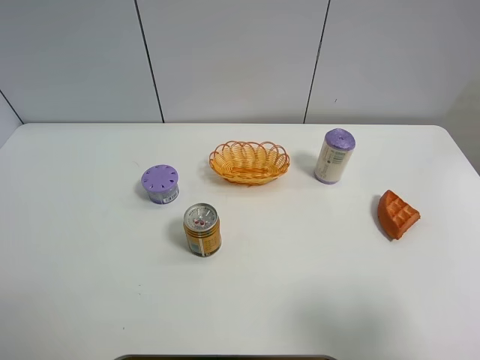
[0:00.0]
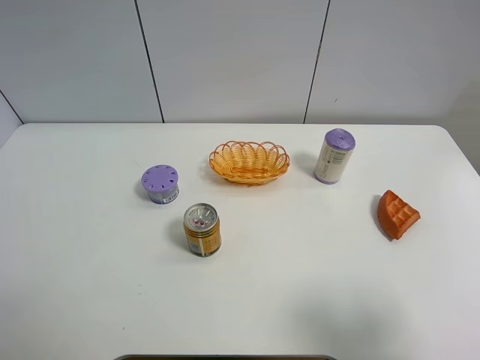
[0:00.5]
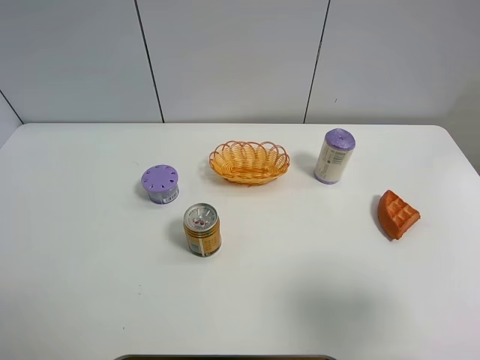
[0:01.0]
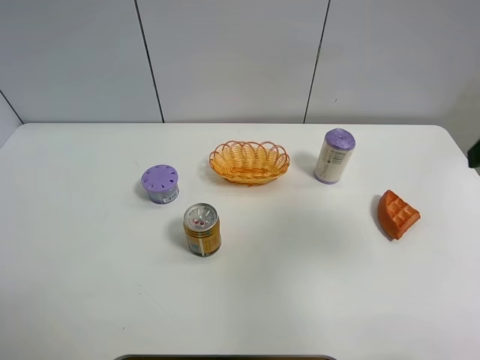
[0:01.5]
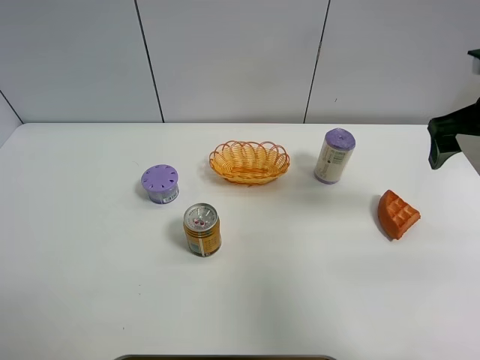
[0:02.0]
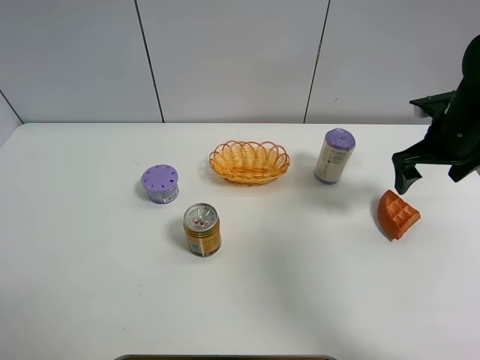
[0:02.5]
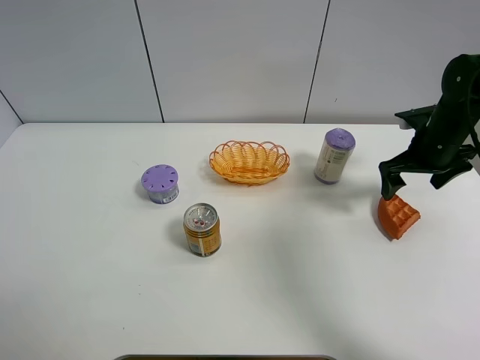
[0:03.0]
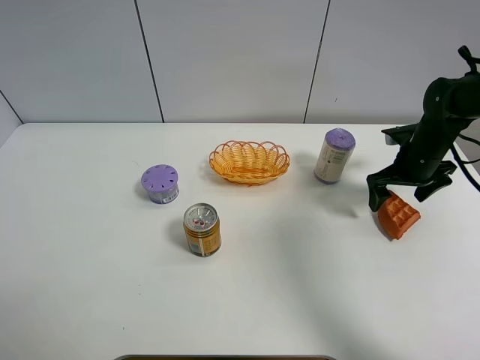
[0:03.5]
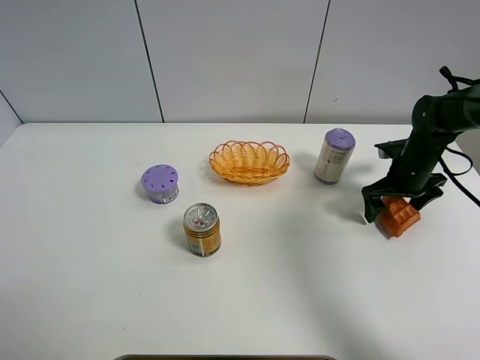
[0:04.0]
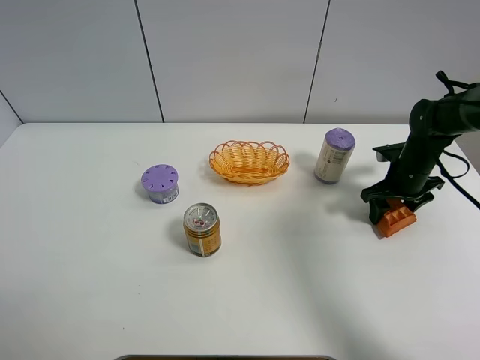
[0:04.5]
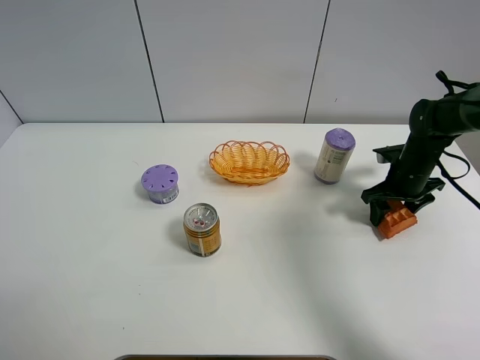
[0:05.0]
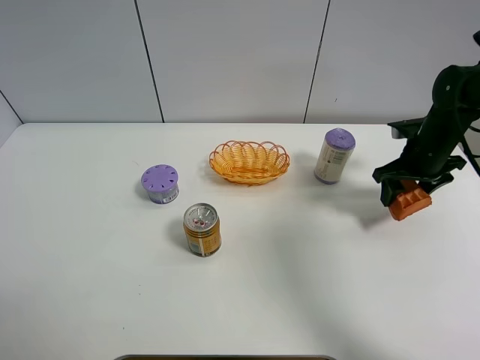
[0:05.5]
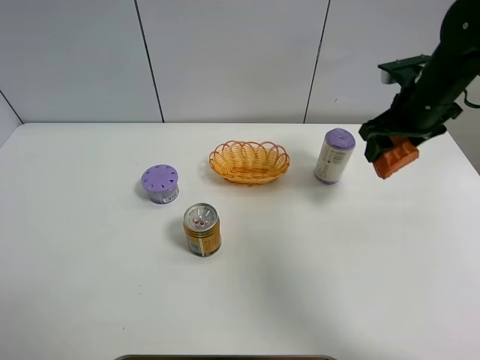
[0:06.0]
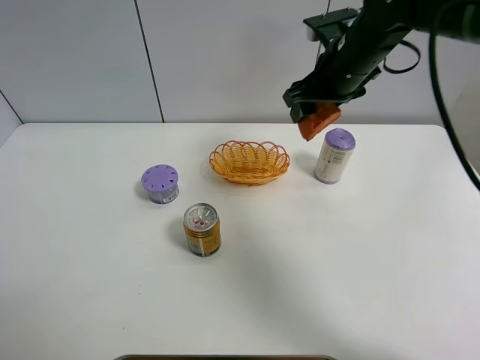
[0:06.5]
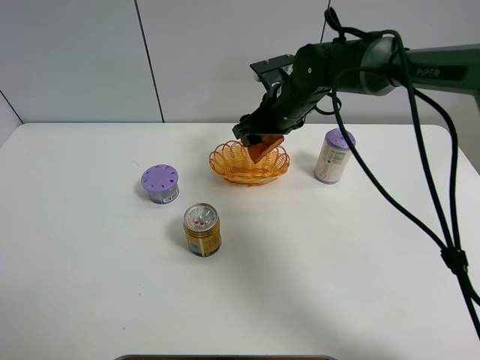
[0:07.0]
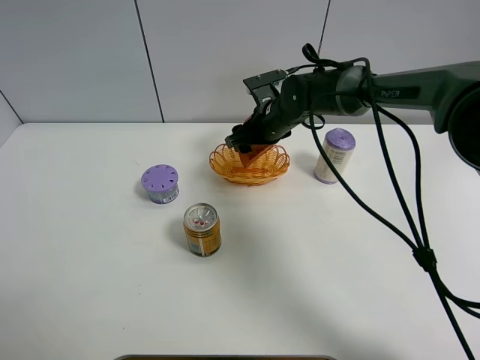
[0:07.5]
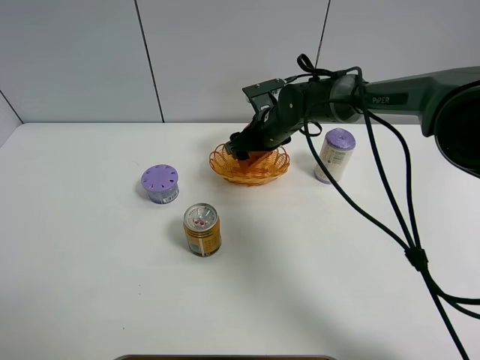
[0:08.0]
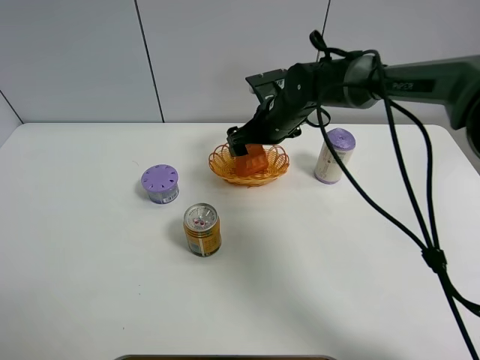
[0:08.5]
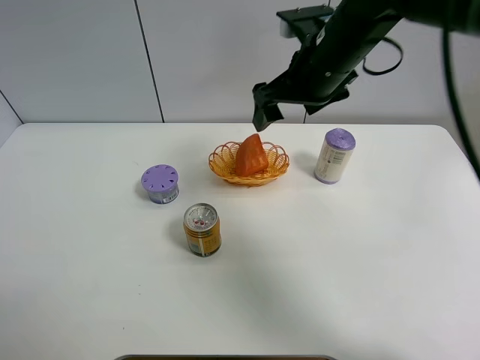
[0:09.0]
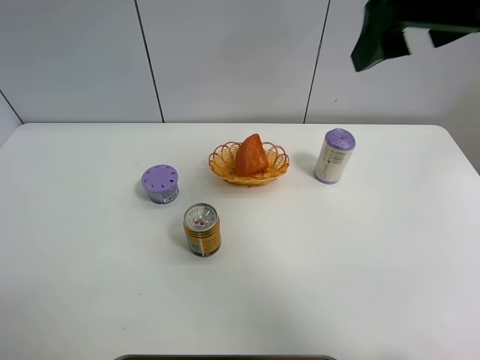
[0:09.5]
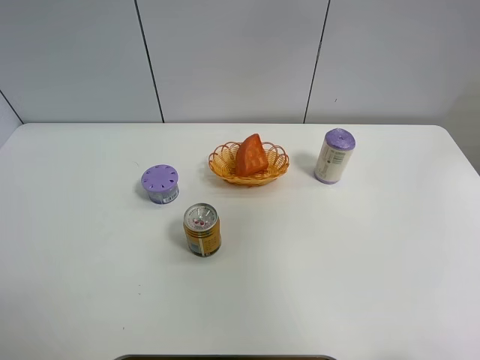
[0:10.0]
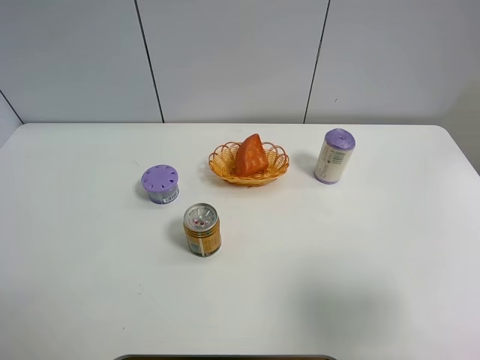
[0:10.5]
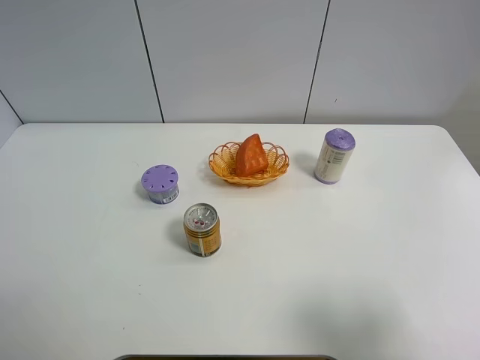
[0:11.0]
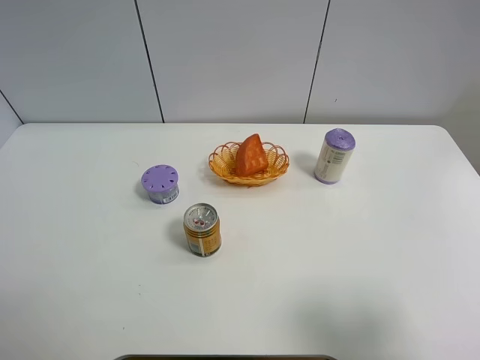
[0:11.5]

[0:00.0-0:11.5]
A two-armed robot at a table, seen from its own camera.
Task of the whole recording: Put the bakery in the basket.
Step, 0:00.0 to 0:04.0: Grasp the bread with right gripper.
Step, 0:04.5 to 0:08.5: Place the bread in the basket with right gripper.
0:00.0 to 0:02.0: The right gripper is displaced forward by roughly 30 cm.
0:02.0 to 0:04.0: The right gripper moves downward and forward, about 20 cm.
0:04.0 to 0:06.0: The right gripper goes about 15 cm upward and to the left, and closes.
0:06.0 to 0:07.5: The right gripper shifts about 20 cm to the left and downward.
0:07.5 to 0:09.5: The right gripper goes approximately 35 cm upward, backward and to the right, and opens.
0:09.5 to 0:11.5: The right gripper shifts roughly 30 cm backward, downward and to the right.
